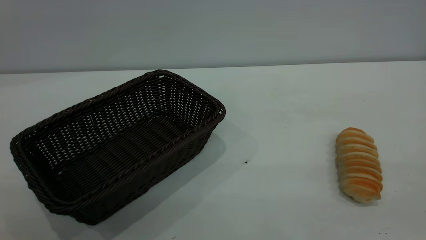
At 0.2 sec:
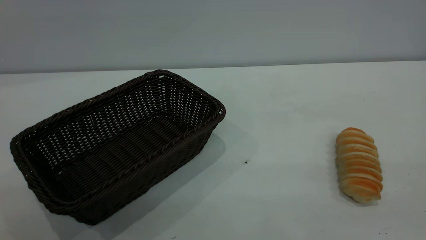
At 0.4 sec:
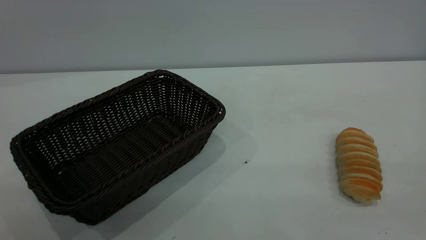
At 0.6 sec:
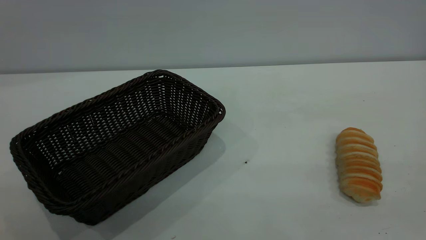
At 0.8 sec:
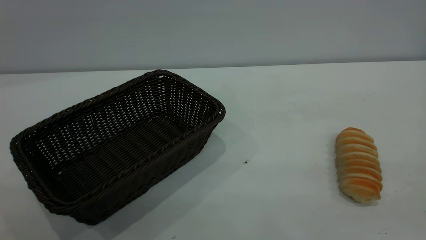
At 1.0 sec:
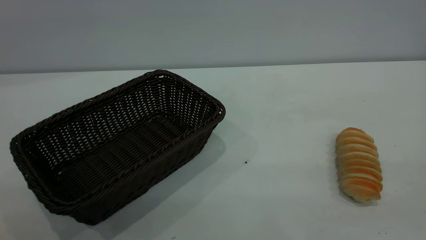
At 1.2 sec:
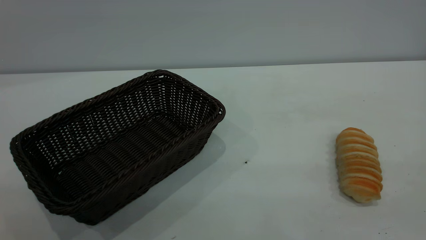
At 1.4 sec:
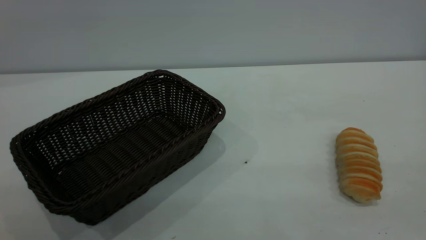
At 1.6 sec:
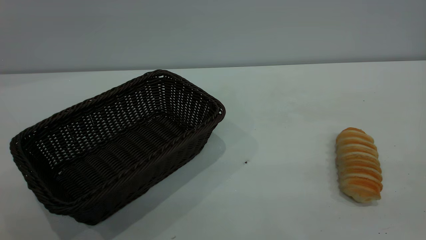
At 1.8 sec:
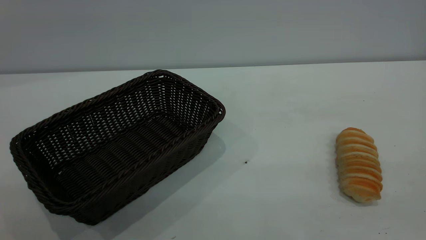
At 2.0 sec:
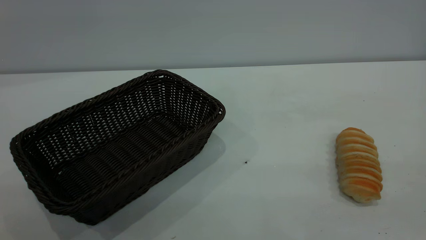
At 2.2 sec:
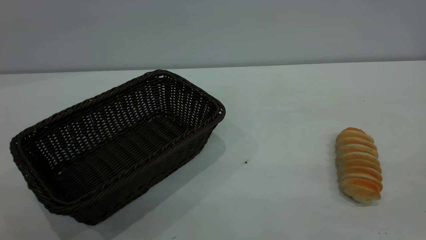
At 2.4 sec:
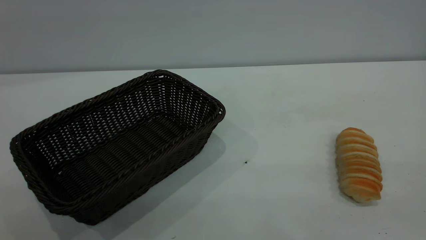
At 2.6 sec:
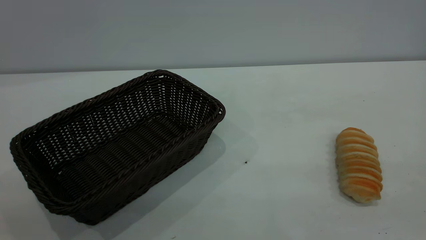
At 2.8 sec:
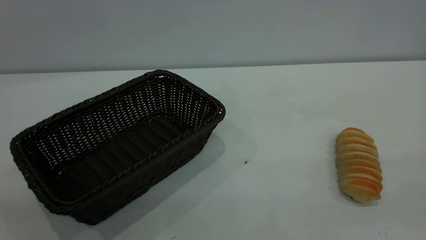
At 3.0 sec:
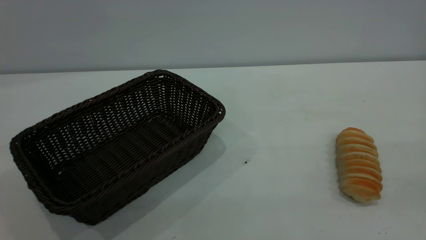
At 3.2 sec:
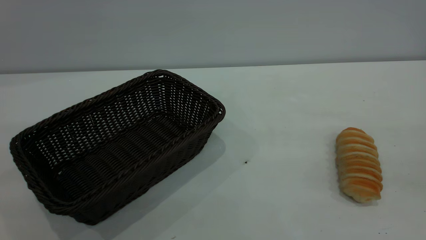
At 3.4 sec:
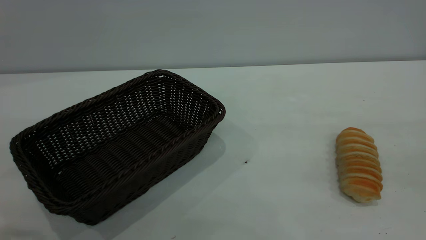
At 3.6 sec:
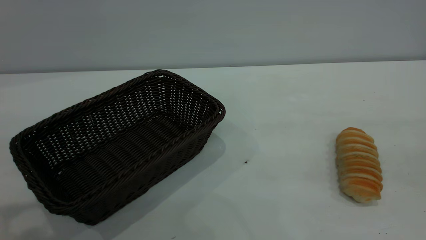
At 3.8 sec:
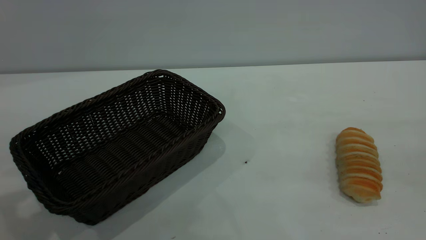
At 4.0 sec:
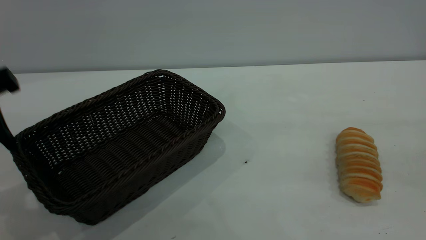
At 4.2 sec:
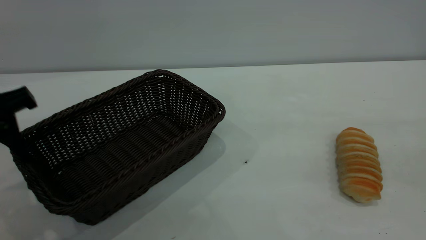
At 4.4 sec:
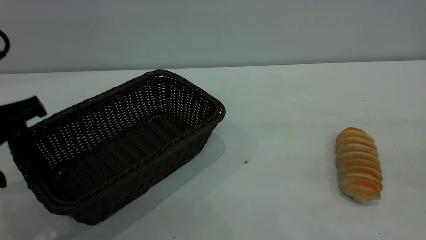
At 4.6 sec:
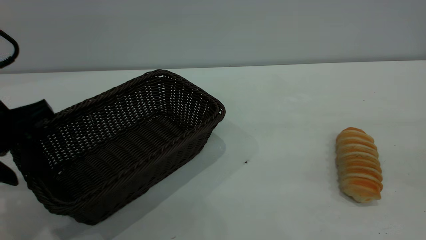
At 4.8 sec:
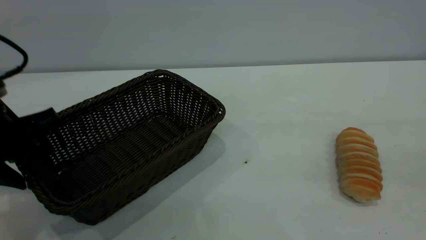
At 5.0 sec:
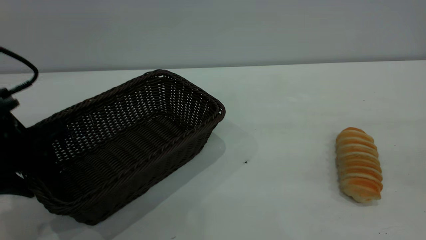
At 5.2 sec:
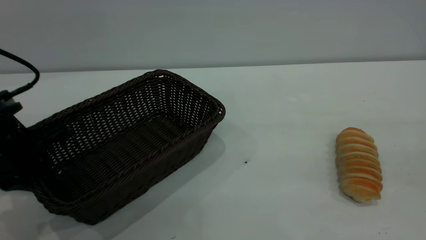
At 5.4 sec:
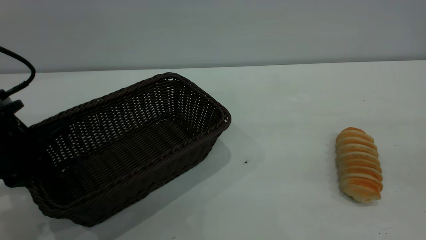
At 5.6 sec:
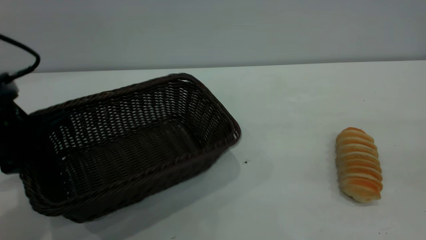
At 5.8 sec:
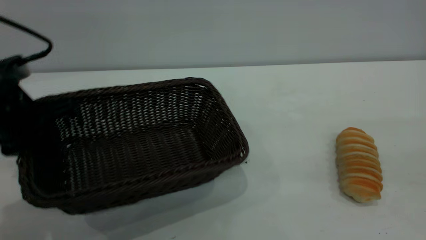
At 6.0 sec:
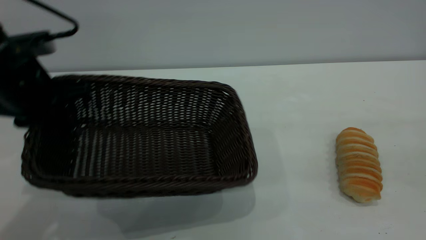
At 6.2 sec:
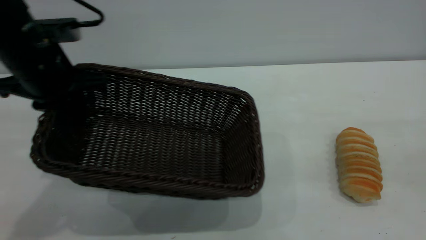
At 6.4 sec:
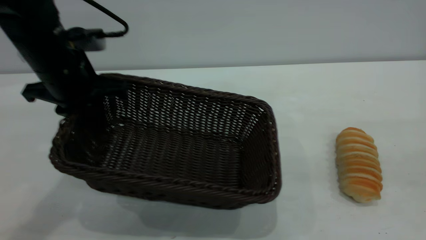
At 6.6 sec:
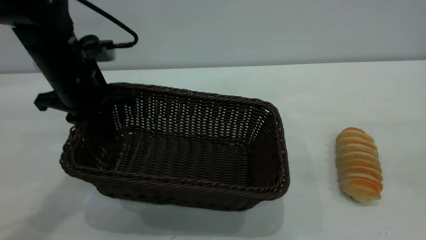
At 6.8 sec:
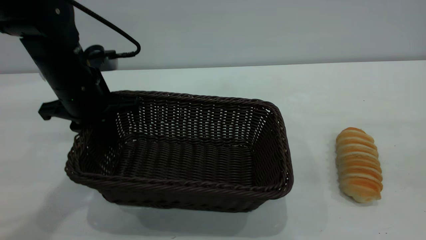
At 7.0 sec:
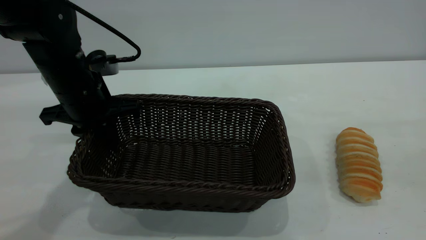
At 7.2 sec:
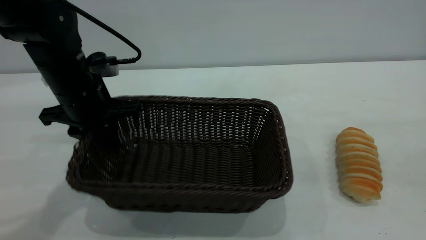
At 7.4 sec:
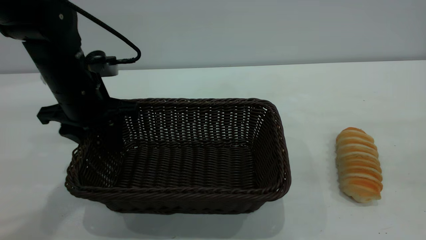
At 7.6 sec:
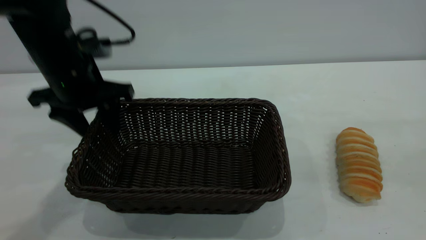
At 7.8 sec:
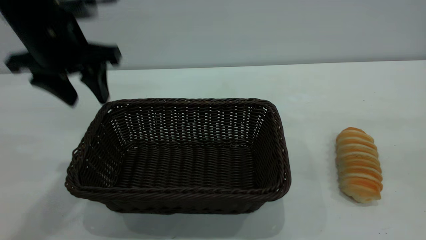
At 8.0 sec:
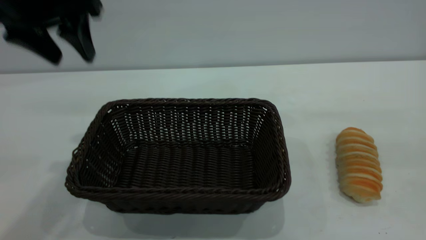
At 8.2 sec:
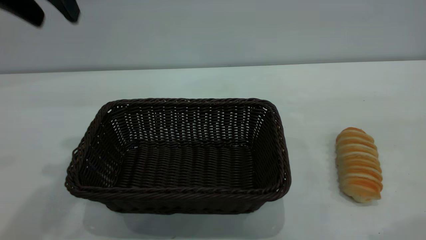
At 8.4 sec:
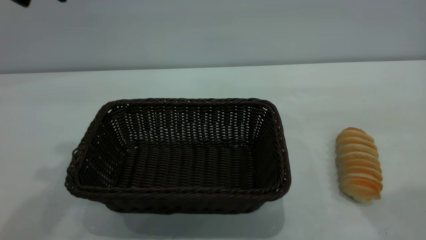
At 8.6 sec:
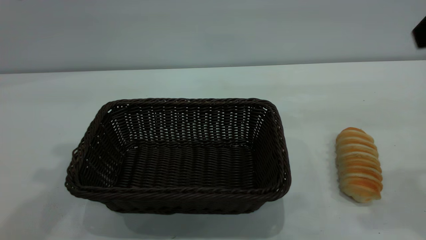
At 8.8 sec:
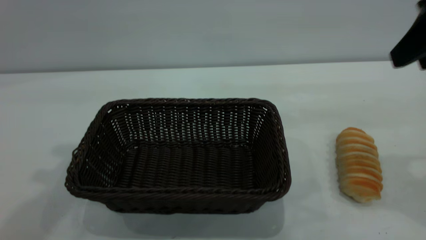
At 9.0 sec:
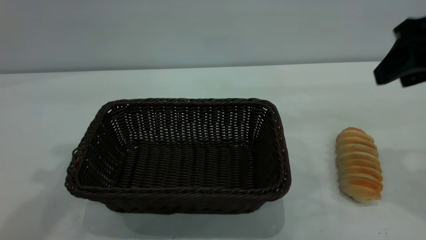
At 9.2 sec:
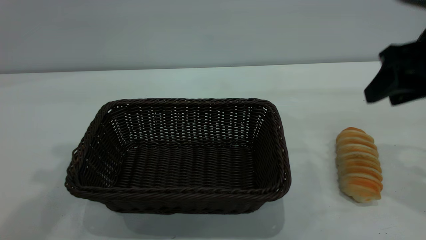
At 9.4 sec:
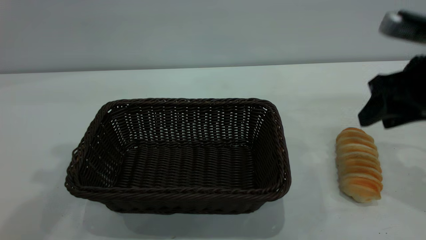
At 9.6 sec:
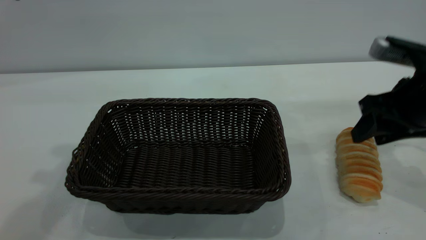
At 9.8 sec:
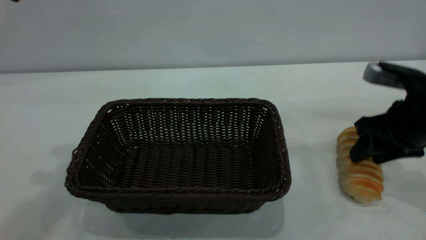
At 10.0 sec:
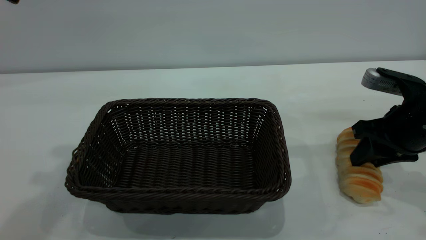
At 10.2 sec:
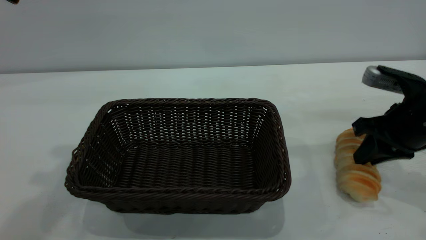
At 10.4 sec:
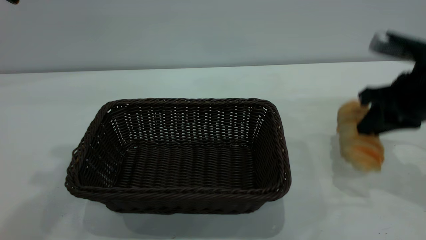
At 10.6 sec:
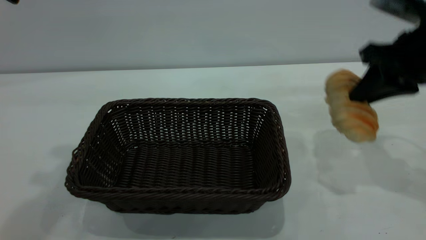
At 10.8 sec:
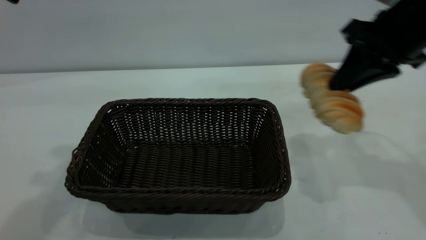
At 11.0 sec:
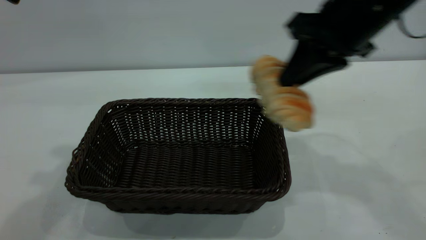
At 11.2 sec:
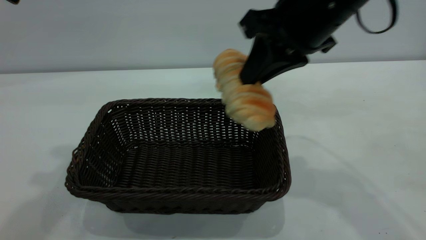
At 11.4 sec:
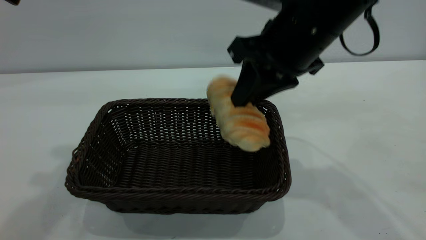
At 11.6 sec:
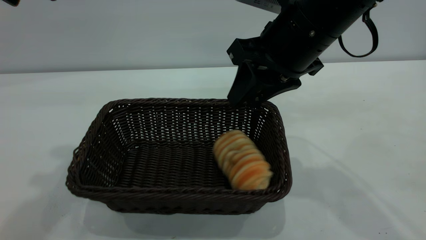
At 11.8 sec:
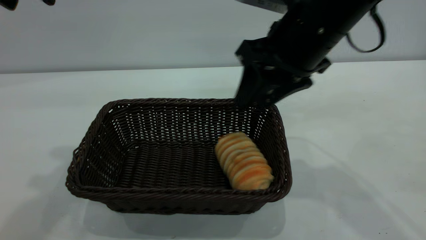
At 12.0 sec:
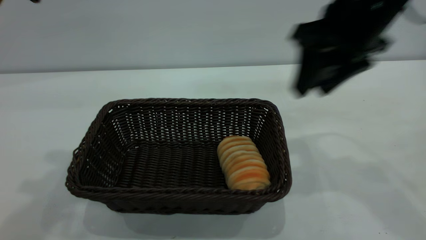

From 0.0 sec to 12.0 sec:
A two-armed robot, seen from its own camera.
Task of the whole recording: One hand grasps the black basket and places it in the middle of the table, while the other hand picks up the long bread and puts it into the black basket.
Step, from 0.0 sec to 7.8 sec: Move the basket to the center of view.
Step, from 10.8 sec to 11.8 sec: place the bread into the basket.
From 0.0 sec to 1.6 sec: The two grippers keep their place.
From 3.0 sec to 4.4 sec: The left gripper moves forward and downward, about 25 cm.
From 4.4 sec to 6.0 sec: The left gripper is displaced forward by approximately 5 cm, and closes up.
From 6.0 sec to 7.6 sec: The left gripper ends up about 5 cm from where it was, and opens up.
From 7.6 sec to 9.0 sec: The left gripper travels upward by roughly 20 cm. The right gripper is displaced forward and downward by some 20 cm.
From 9.0 sec to 10.4 sec: The right gripper is displaced downward by some 10 cm, and closes its fingers.
From 10.4 sec to 12.0 sec: The right gripper heads upward and to the left, covering about 15 cm, and opens.

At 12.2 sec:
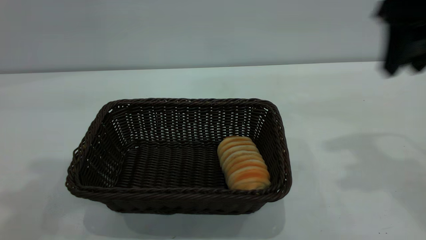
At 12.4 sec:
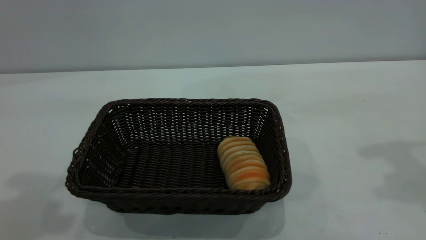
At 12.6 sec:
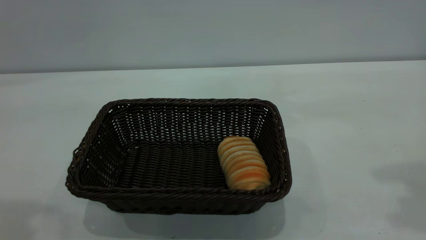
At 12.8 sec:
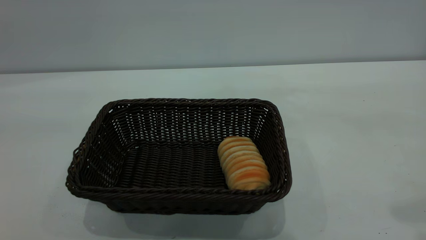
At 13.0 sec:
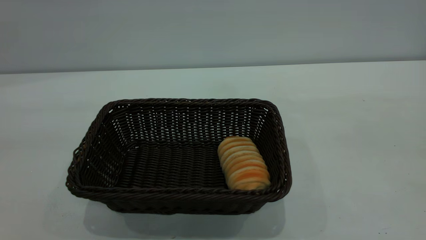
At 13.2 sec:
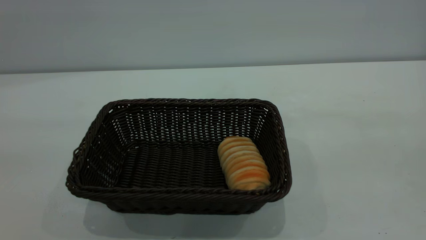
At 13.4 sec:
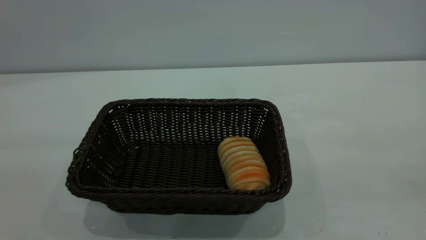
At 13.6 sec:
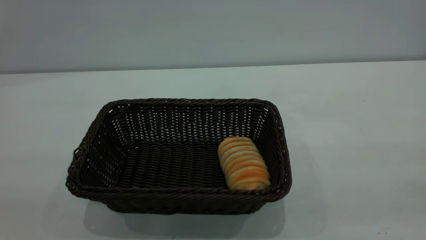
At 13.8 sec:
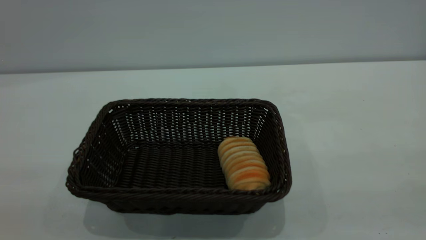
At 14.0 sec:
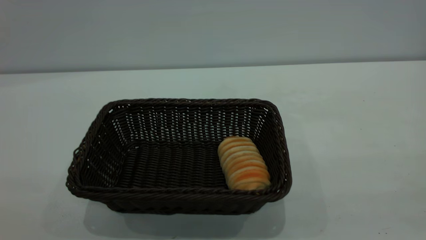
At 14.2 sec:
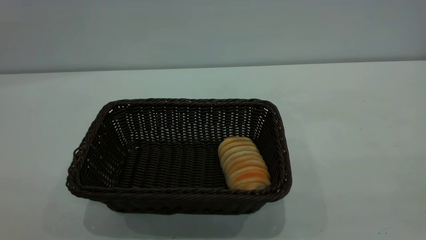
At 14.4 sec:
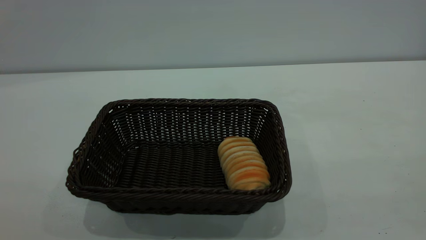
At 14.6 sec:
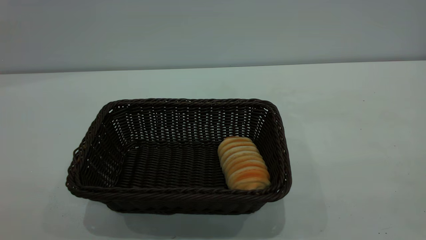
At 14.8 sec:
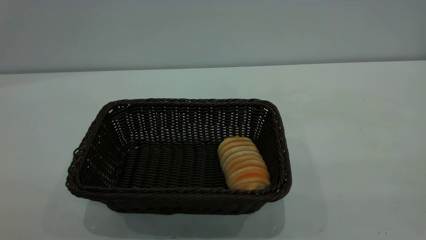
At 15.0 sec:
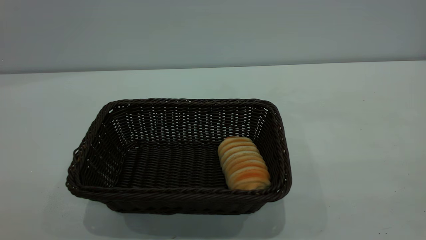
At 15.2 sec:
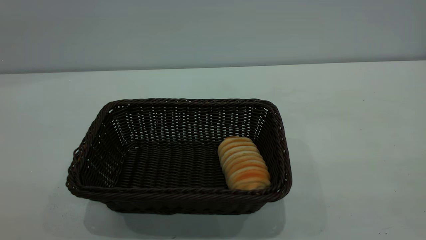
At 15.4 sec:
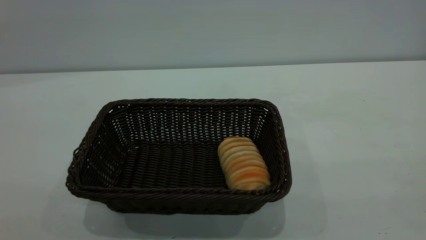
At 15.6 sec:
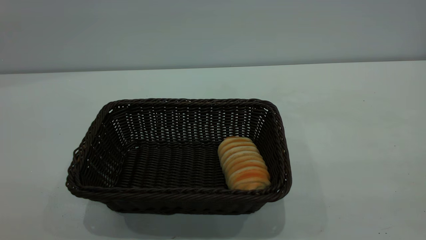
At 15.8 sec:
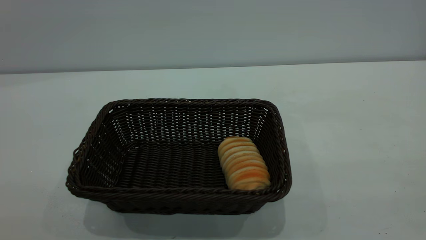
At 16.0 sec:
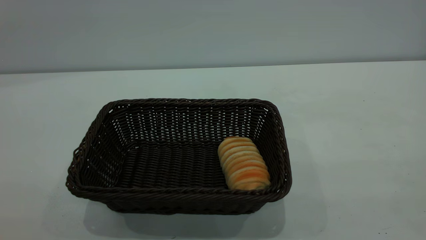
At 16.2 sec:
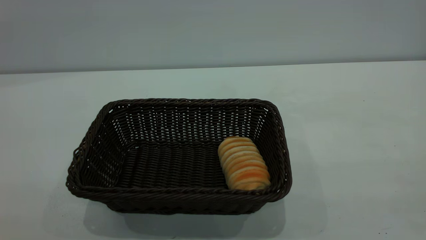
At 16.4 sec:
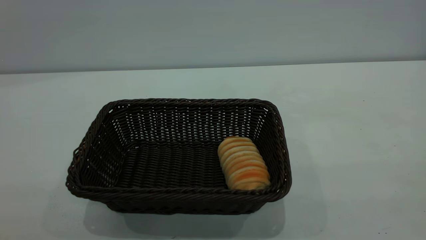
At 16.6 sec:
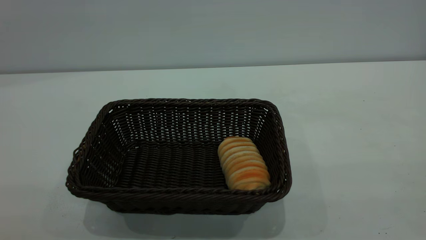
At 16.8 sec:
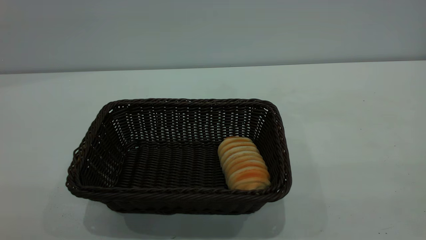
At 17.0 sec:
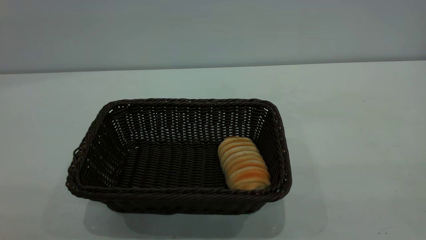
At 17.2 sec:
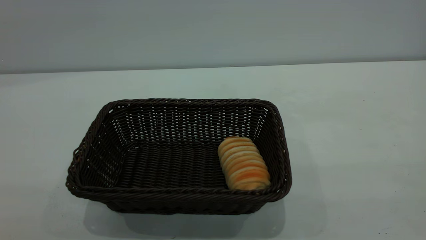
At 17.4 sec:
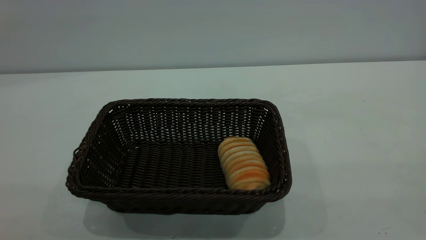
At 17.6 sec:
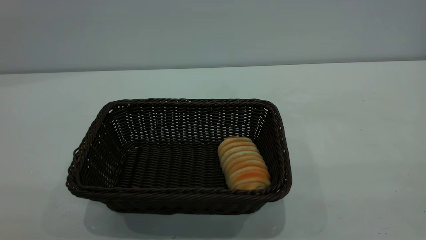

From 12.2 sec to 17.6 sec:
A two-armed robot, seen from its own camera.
Task of the whole recording: One hand grasps the black basket and places it in the middle of the table, while the other hand picks up the long bread and puts it into the black basket.
From 12.2 sec to 13.6 sec: The right gripper travels backward by about 30 cm.
